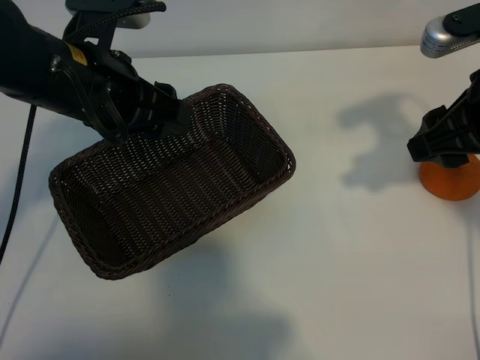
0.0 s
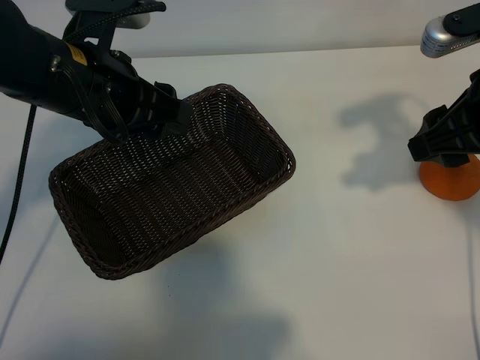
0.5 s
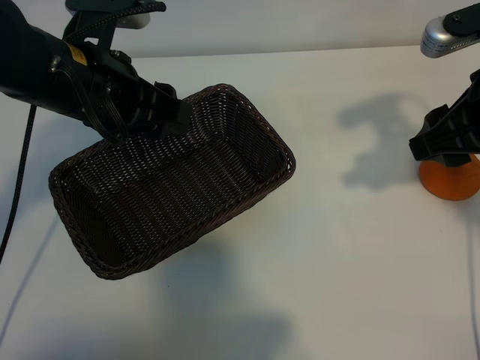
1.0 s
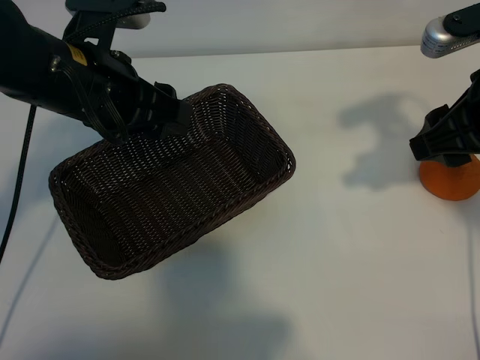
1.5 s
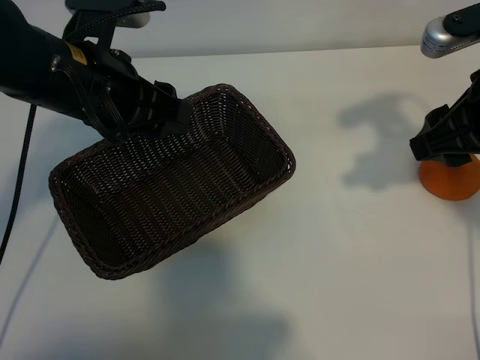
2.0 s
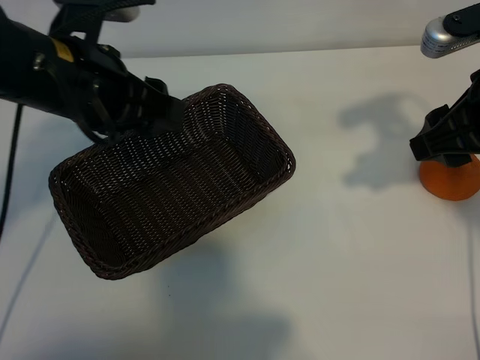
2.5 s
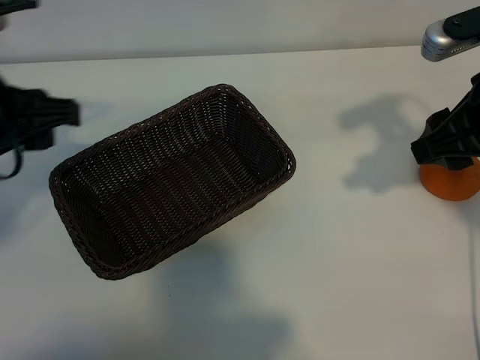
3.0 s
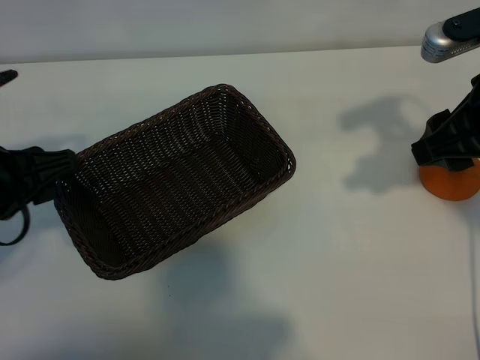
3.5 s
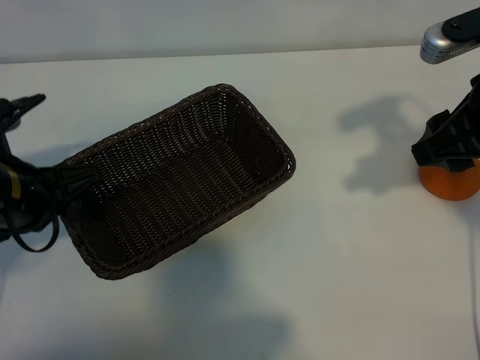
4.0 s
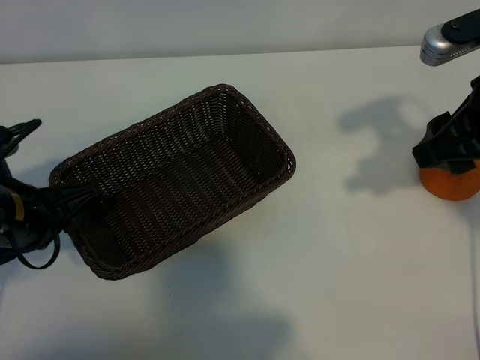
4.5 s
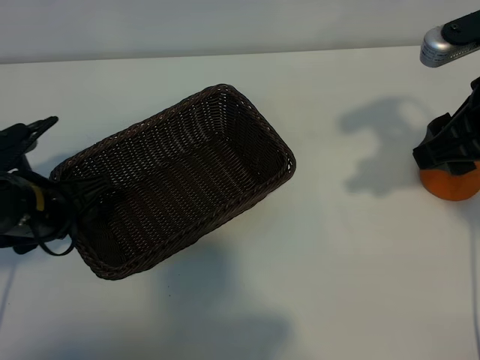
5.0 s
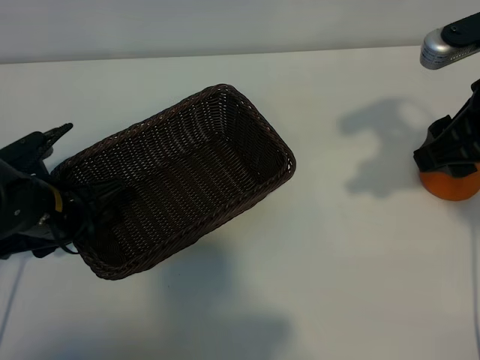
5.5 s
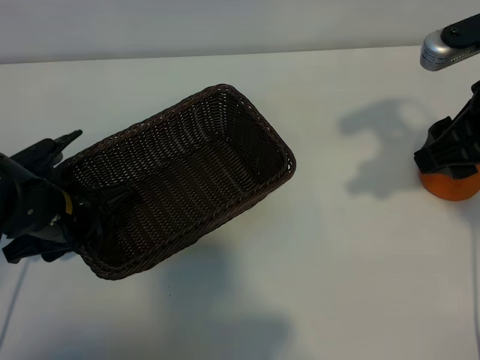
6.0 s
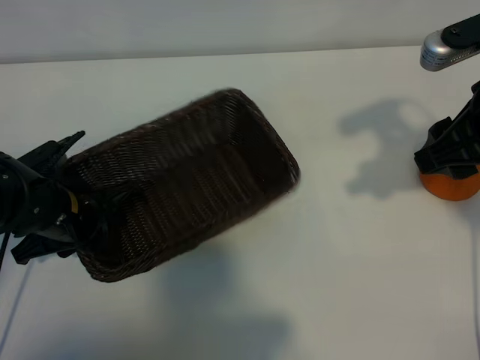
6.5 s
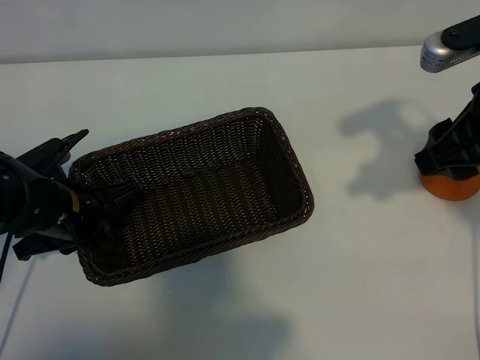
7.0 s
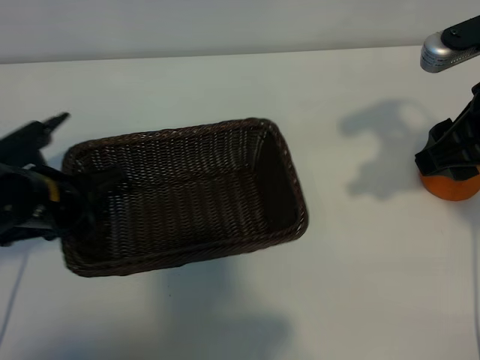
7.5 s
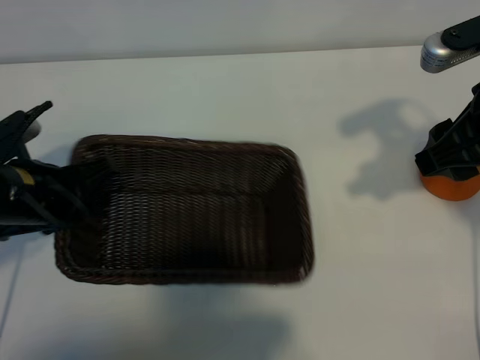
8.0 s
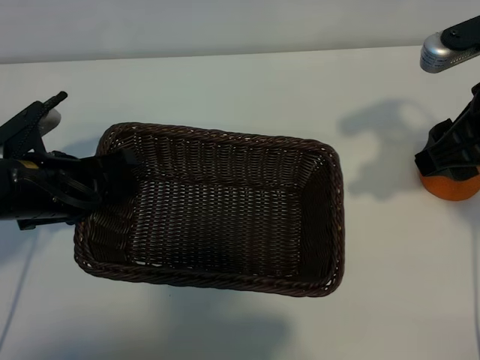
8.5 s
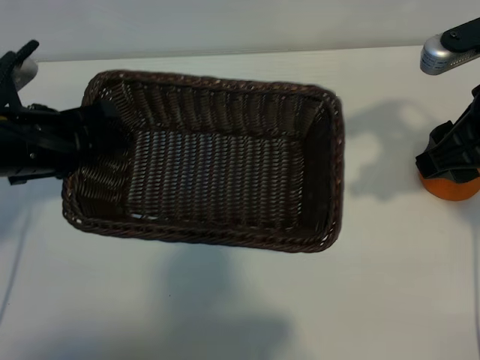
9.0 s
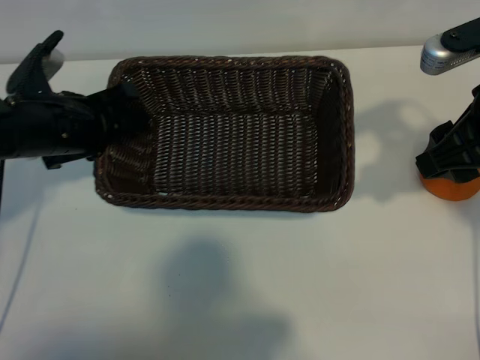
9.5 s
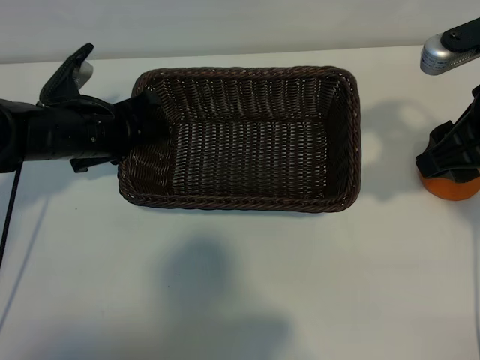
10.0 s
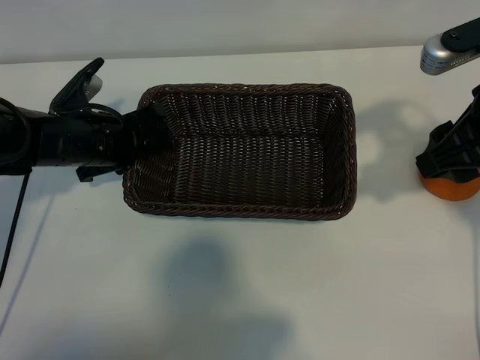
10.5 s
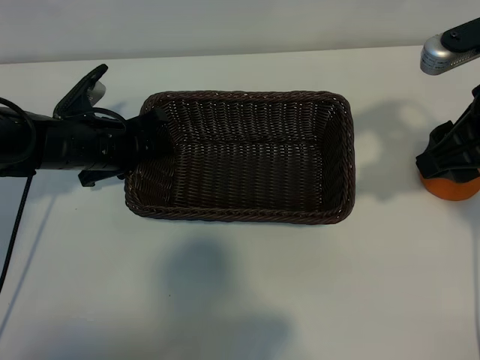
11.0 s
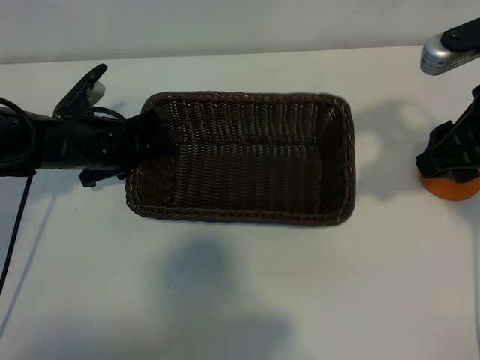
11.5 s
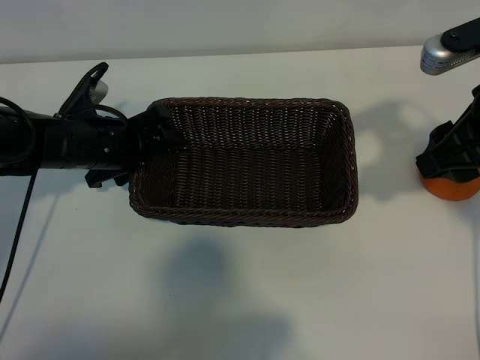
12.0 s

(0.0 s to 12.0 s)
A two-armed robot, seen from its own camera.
Task of the whole recording: pick up the orange and put it into the basket.
Step, 0.0 s - 6.5 s: Grasp the basket with left gripper.
Step, 7.0 s - 11.5 s: Place the basket in the center of view with left gripper.

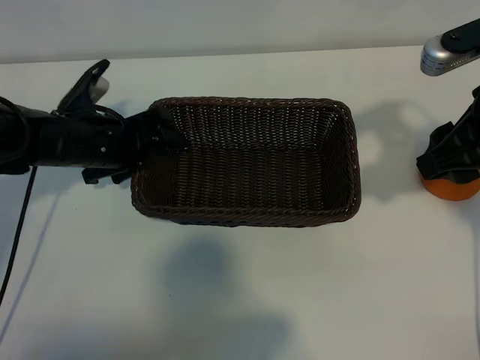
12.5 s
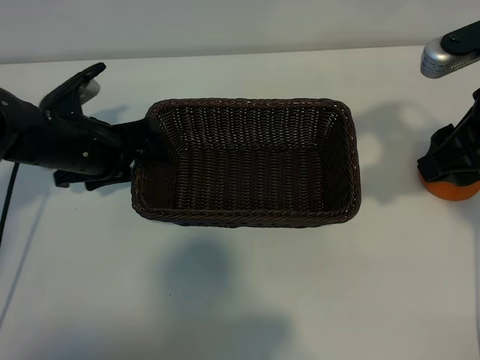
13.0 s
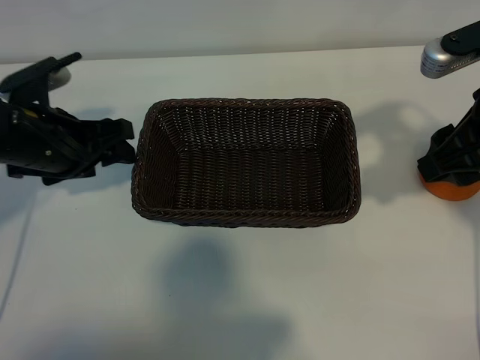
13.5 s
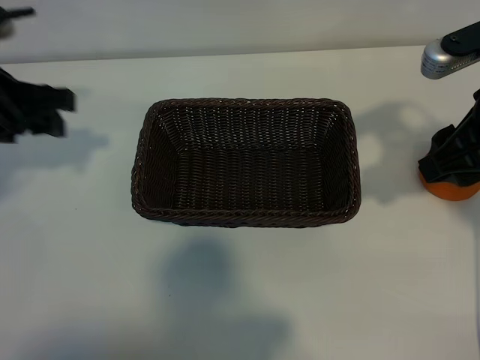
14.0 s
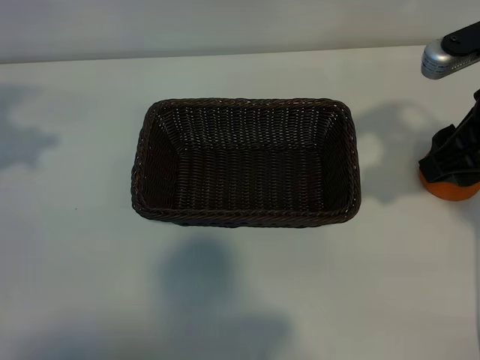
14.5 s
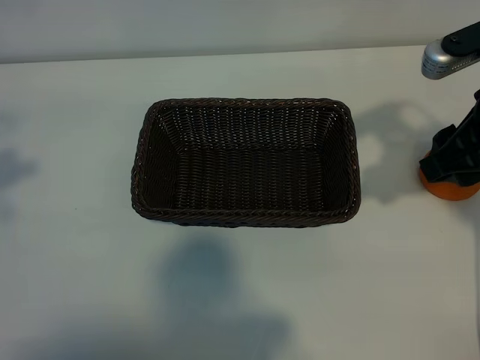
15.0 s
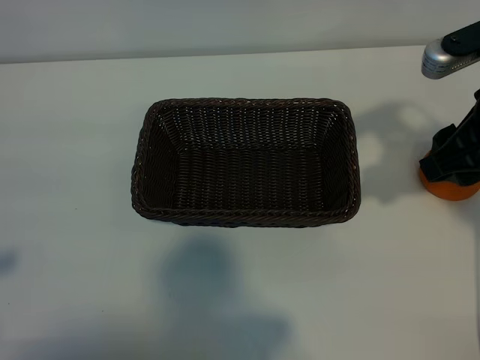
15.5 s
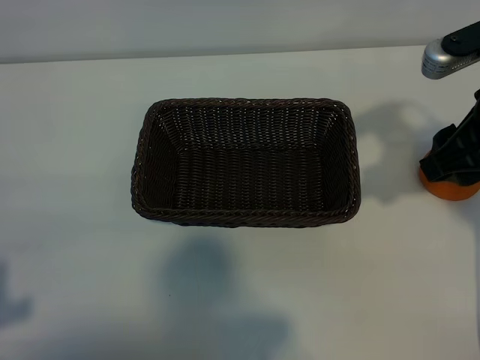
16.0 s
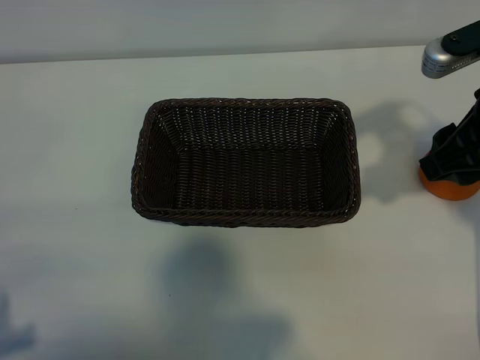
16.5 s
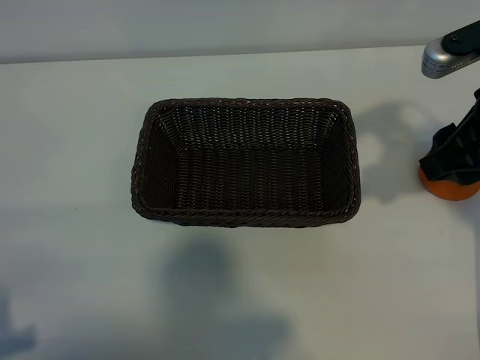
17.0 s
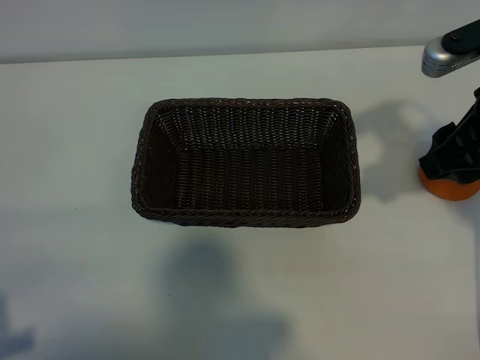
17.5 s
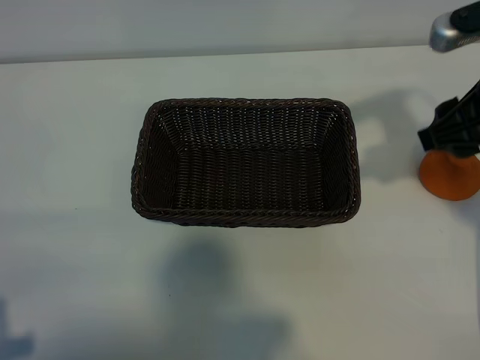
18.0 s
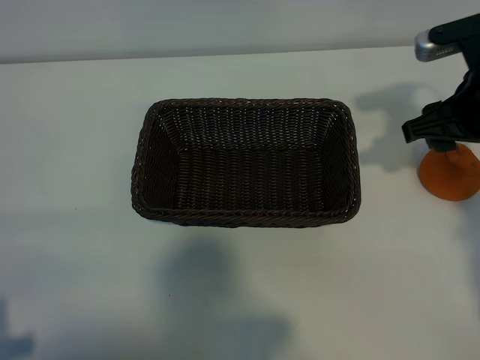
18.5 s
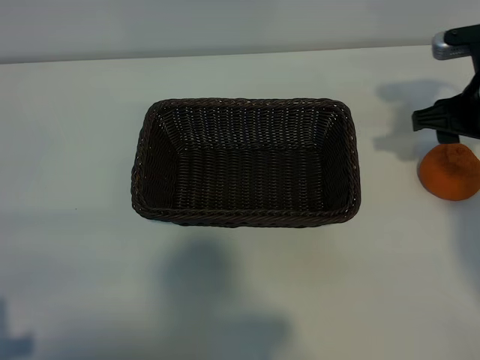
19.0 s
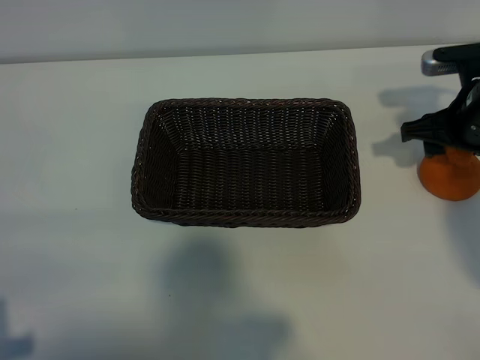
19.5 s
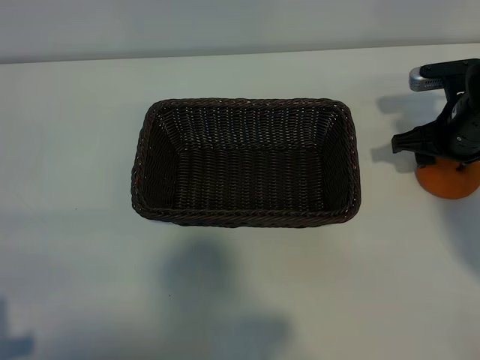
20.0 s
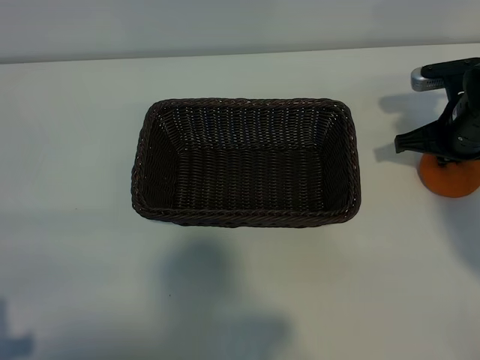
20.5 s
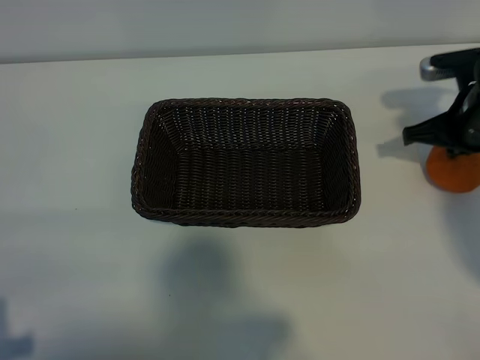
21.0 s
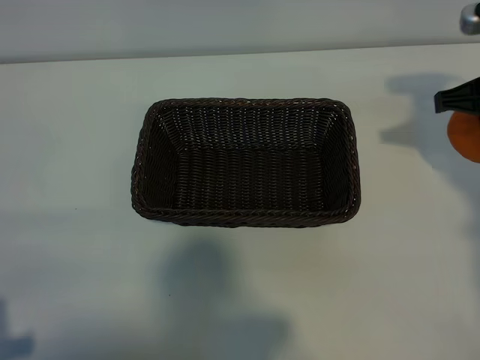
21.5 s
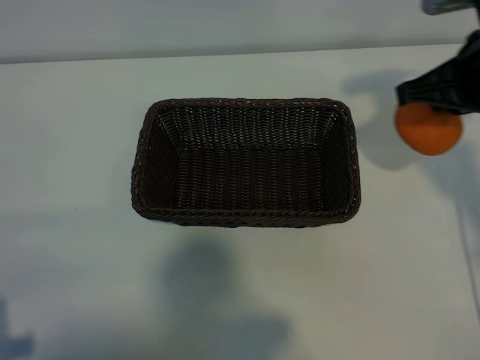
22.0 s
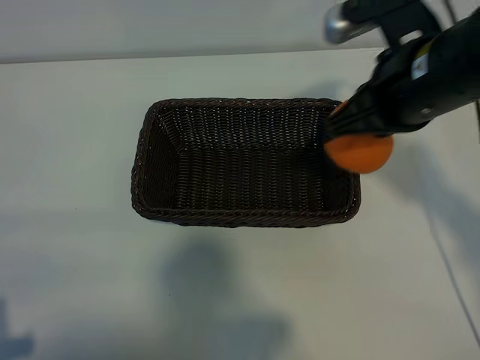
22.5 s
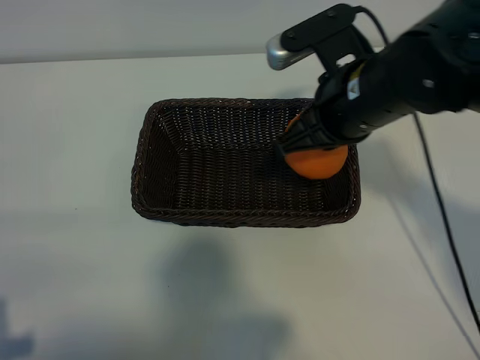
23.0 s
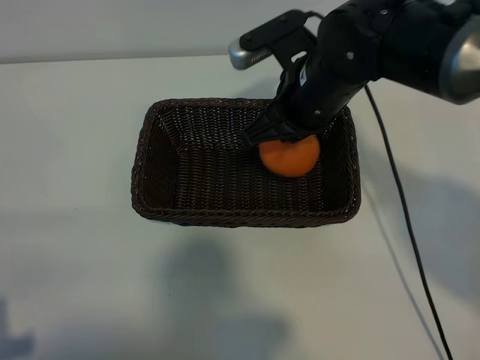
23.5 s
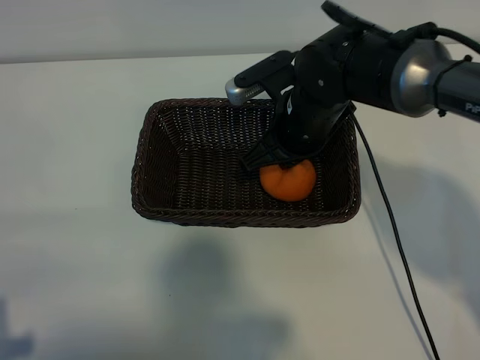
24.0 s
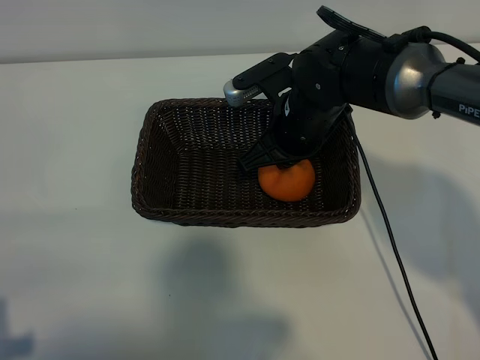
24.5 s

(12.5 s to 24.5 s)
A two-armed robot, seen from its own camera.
Task of the whole recording: pick up the orange and put it into the basket.
Step, 12.5 s - 20.5 s: Grasp the orange with right gripper.

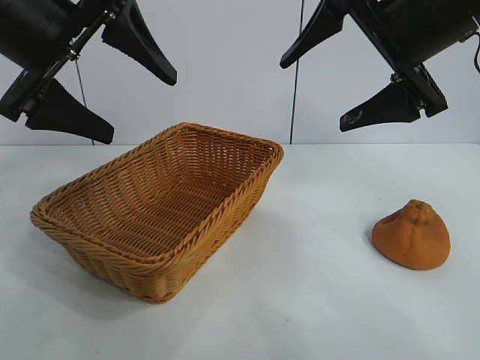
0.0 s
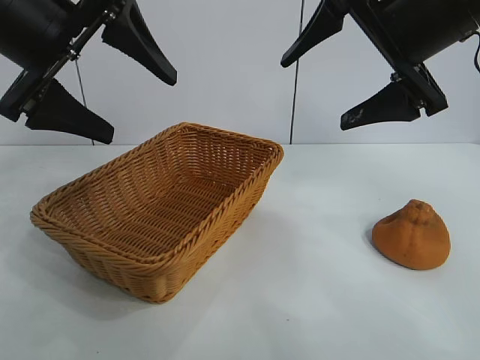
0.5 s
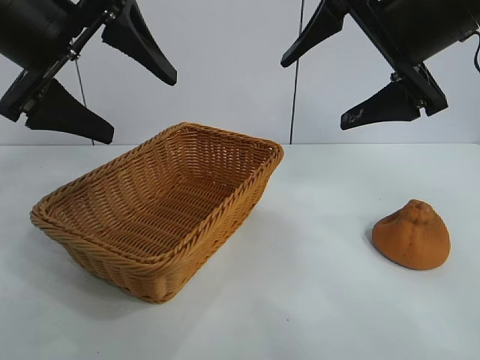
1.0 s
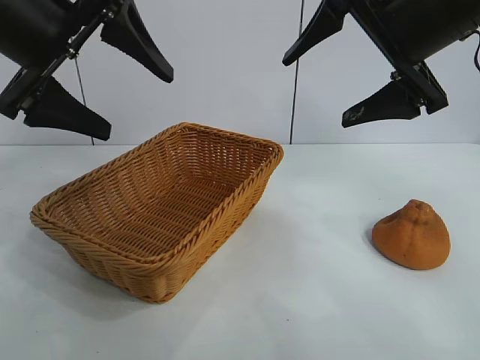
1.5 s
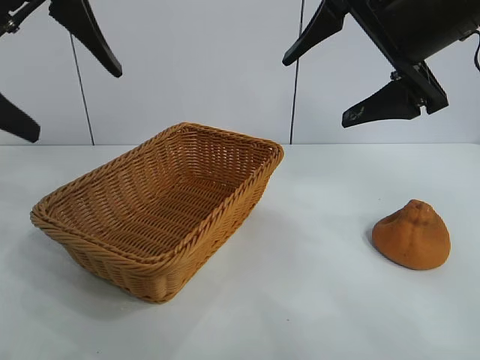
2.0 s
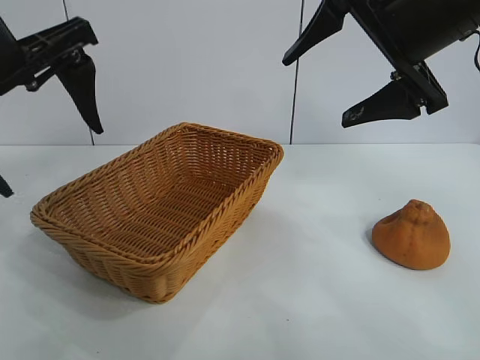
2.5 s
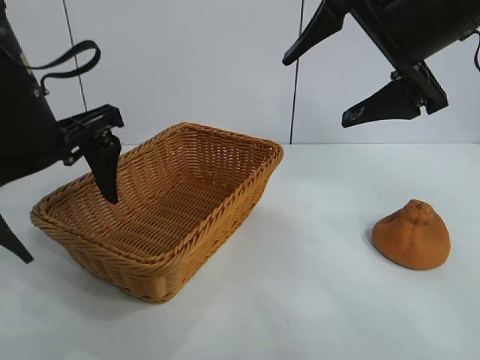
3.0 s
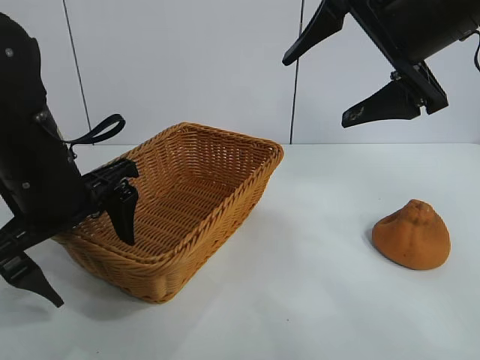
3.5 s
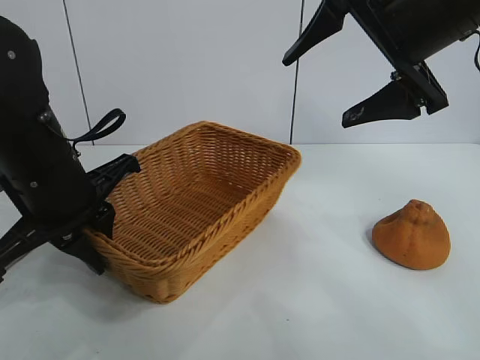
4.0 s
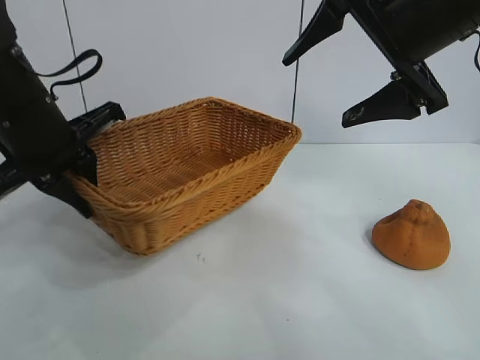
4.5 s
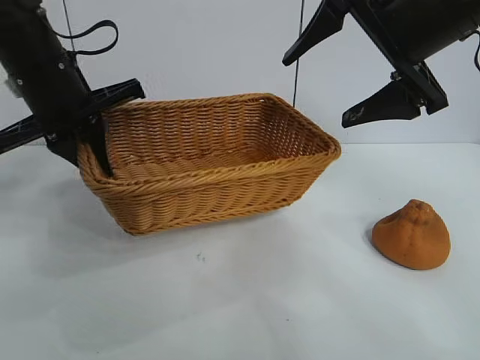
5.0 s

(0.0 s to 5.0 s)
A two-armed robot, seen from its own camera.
Task of the whole recording: pick up the orange and put it into the basket.
Step, 1.5 s - 4.0 s: Grasp the basket with left gripper.
